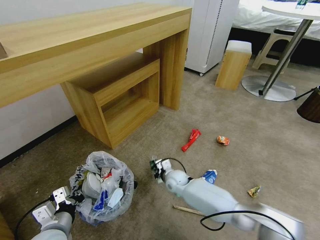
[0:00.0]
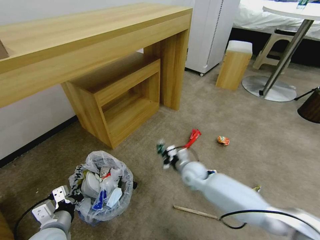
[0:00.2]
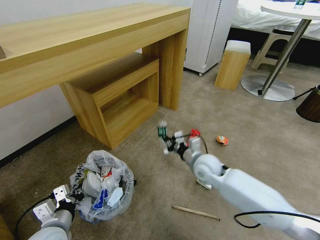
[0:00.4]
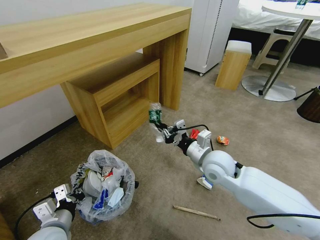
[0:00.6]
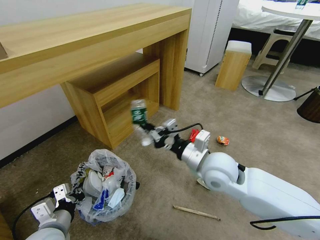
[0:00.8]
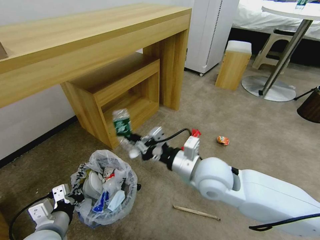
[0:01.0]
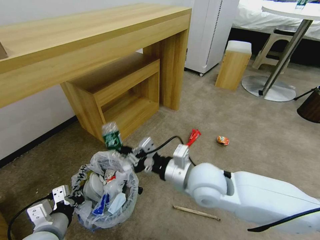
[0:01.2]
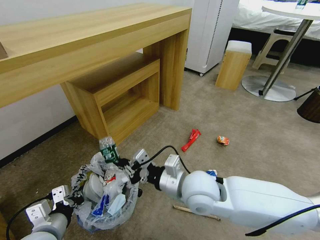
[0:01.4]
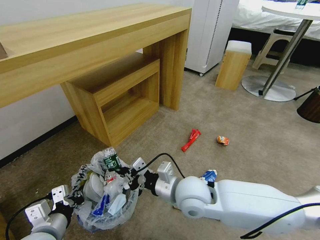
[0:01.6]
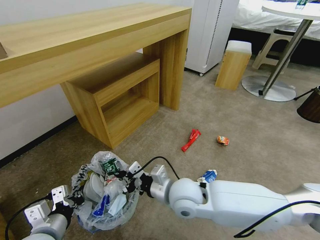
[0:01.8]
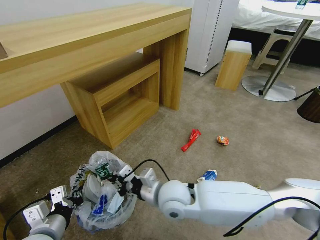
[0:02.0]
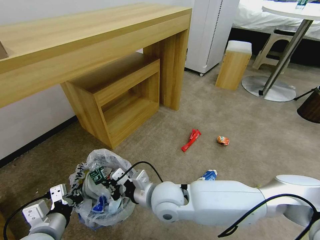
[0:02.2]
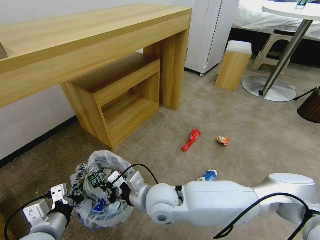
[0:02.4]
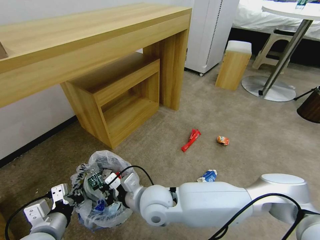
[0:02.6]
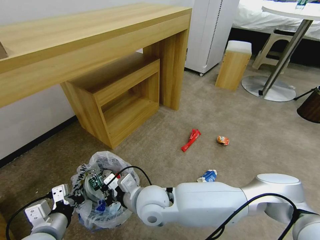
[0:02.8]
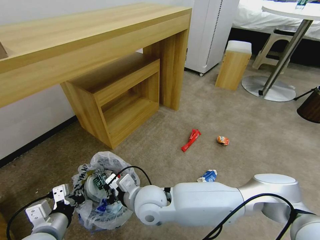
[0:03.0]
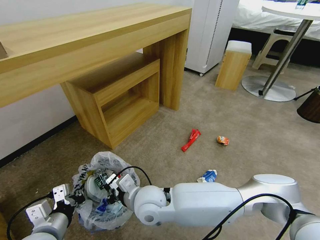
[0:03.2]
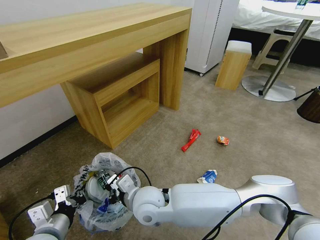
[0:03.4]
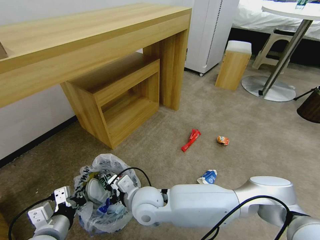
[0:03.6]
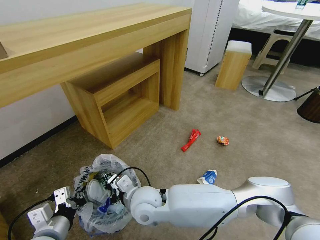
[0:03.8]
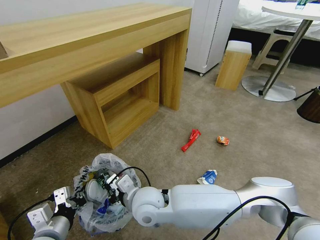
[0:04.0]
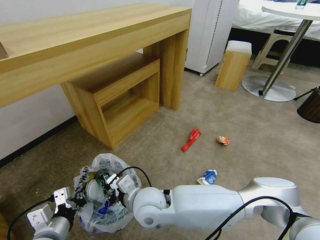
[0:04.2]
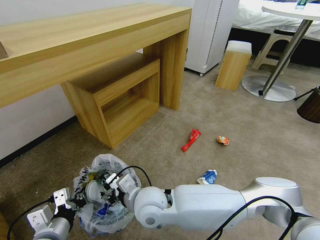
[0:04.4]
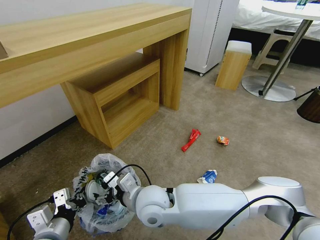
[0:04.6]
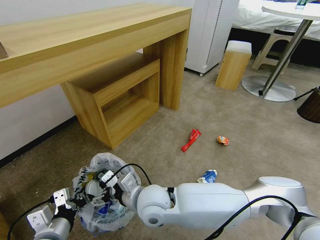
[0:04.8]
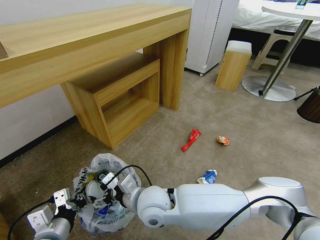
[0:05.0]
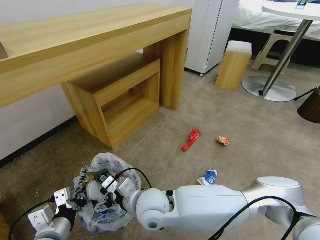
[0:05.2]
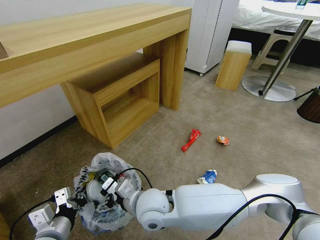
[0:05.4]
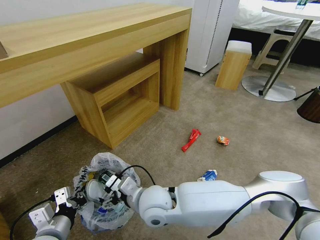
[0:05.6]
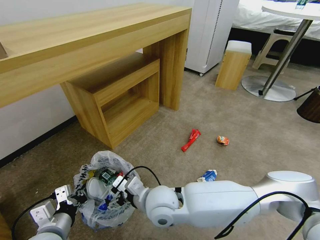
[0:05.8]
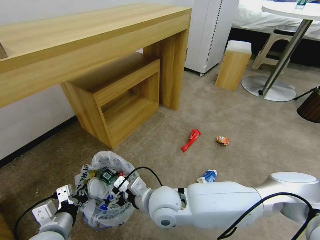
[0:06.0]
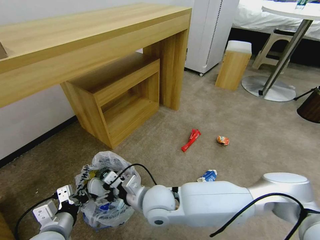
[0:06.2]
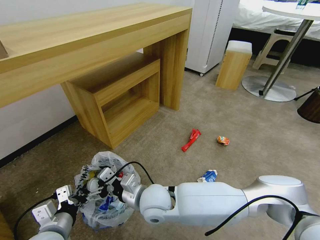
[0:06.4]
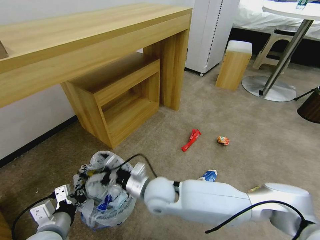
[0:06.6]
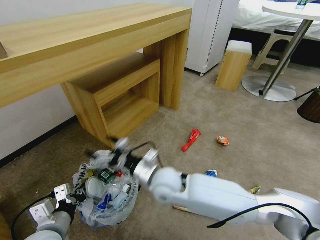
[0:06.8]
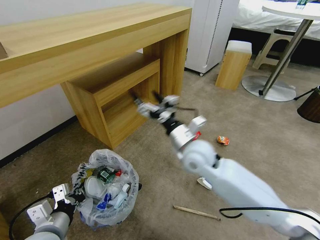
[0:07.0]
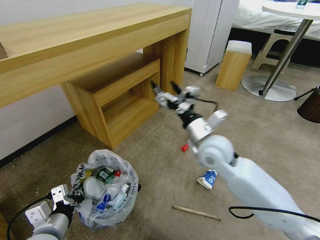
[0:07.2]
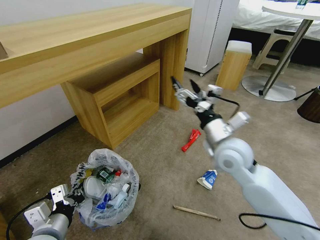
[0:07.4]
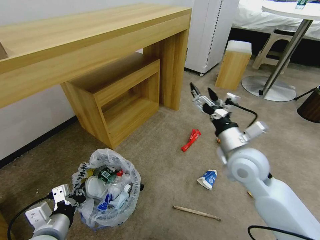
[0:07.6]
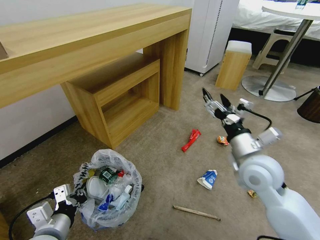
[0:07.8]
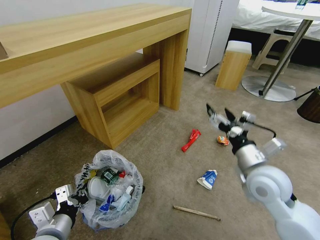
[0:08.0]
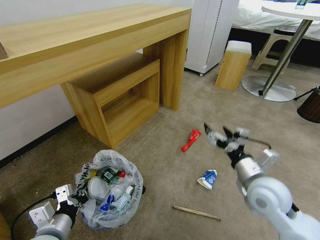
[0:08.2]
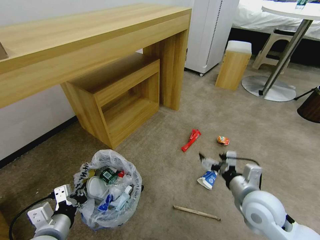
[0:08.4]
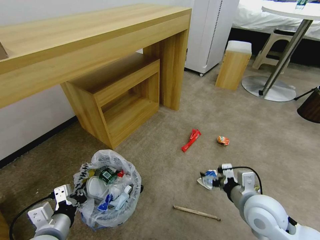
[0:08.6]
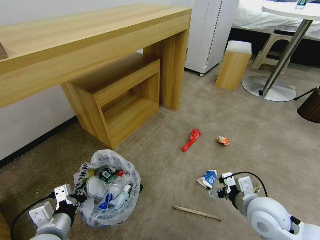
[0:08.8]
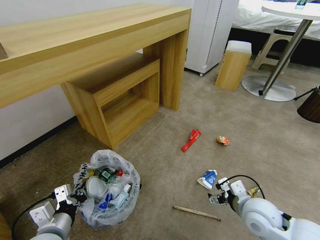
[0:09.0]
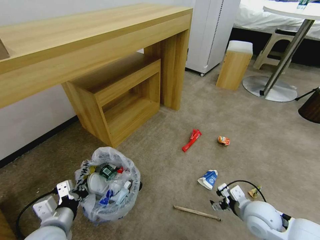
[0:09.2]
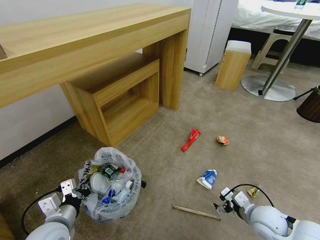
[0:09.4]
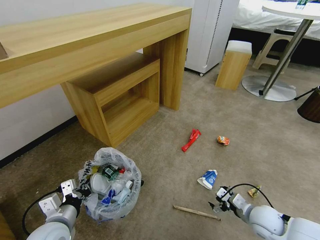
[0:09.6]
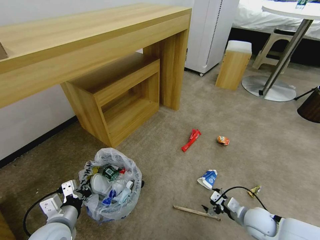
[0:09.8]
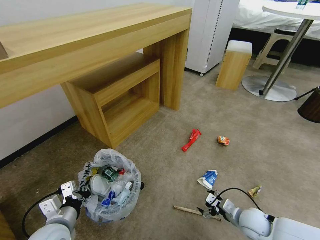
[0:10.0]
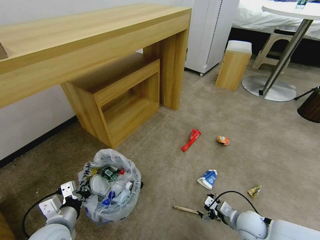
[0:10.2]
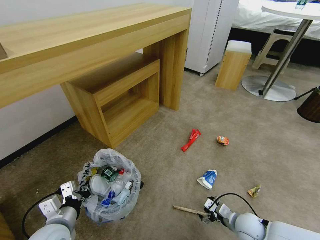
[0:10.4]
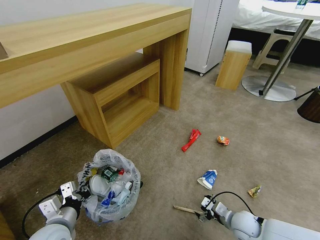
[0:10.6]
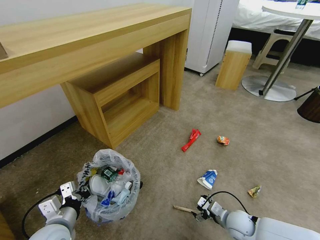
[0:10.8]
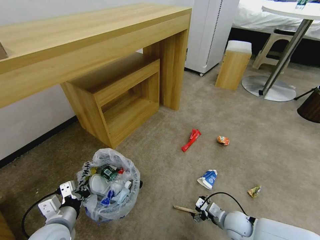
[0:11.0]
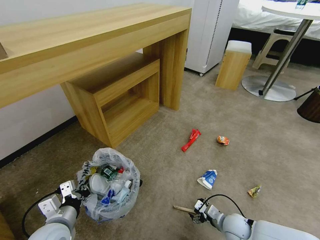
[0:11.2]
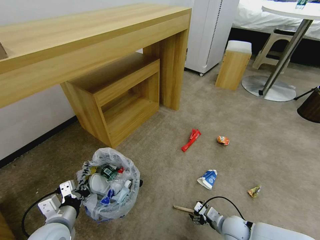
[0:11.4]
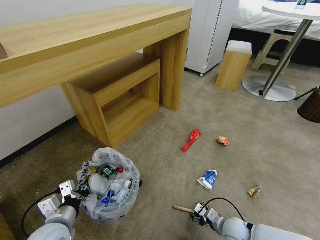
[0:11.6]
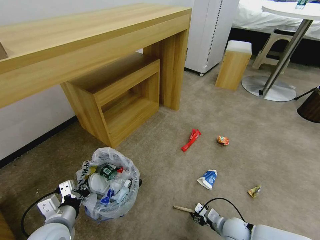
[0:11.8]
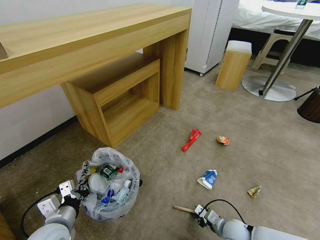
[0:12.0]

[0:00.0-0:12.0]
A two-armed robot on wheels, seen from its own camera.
Task of the whole recording: Pick up the trash bin and place the garbage on the floor into it.
0:00.0 to 0:01.6: The left gripper shifts approximately 5 cm upward. Meanwhile the right gripper travels upward and backward by roughly 25 cm.
0:01.6 to 0:03.0: The right gripper moves to the left, some 10 cm.
0:03.0 to 0:04.4: The right gripper opens its fingers.
0:04.4 to 0:06.0: The right gripper opens its fingers.
0:06.0 to 0:07.6: The right gripper goes about 25 cm to the right and upward.
0:07.6 to 0:09.0: The right gripper goes approximately 15 cm downward, backward and to the right.
0:09.0 to 0:10.4: The right gripper goes about 15 cm downward.
0:10.4 to 0:12.0: The right gripper changes place by about 5 cm, and closes its fingers.

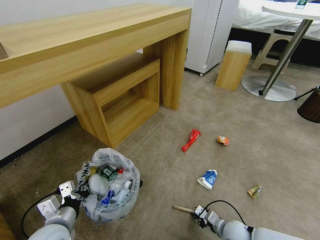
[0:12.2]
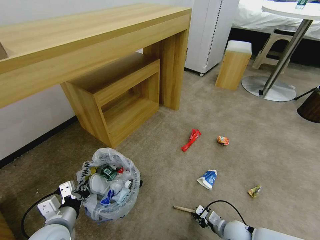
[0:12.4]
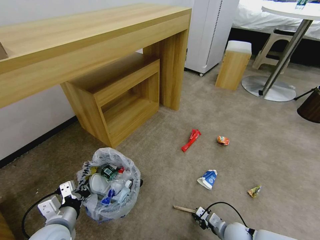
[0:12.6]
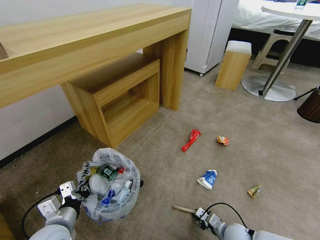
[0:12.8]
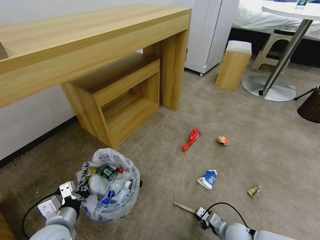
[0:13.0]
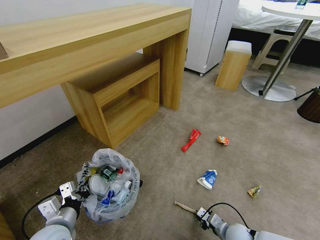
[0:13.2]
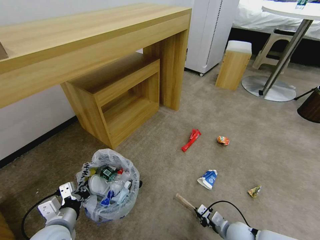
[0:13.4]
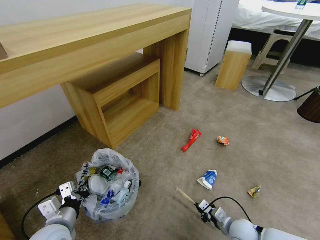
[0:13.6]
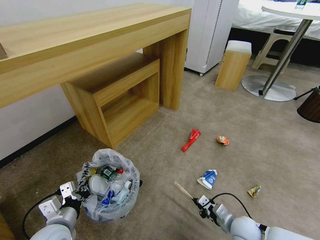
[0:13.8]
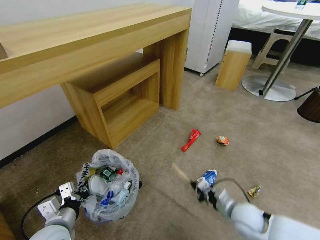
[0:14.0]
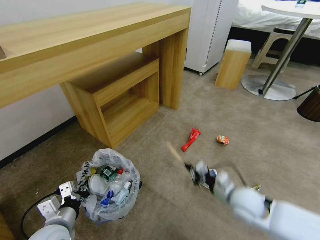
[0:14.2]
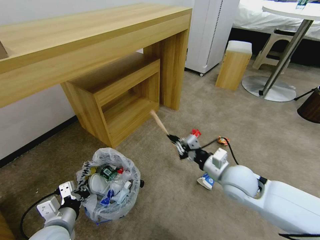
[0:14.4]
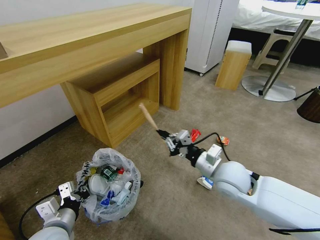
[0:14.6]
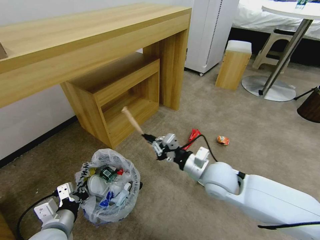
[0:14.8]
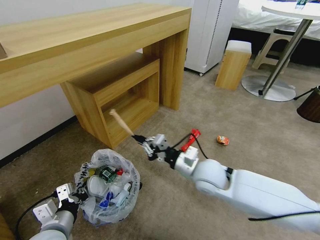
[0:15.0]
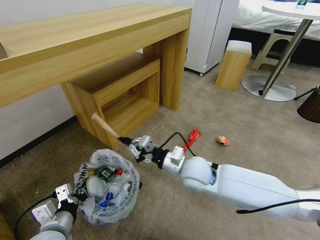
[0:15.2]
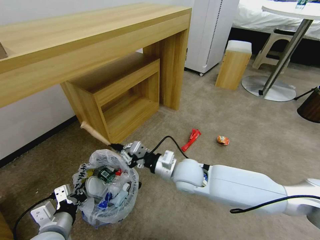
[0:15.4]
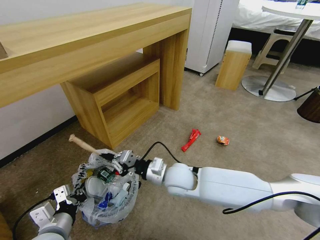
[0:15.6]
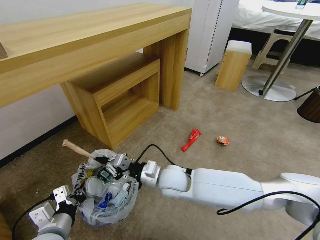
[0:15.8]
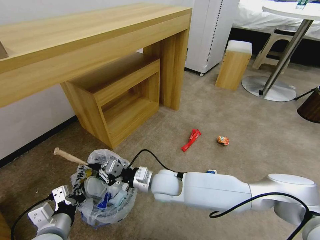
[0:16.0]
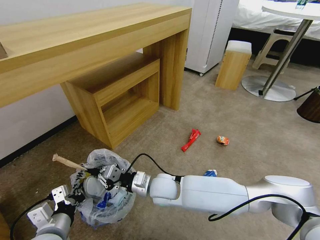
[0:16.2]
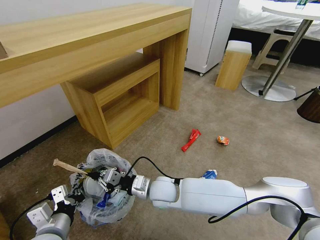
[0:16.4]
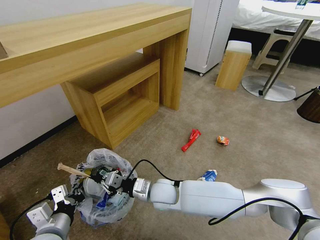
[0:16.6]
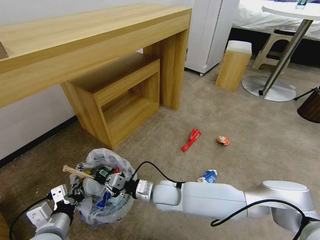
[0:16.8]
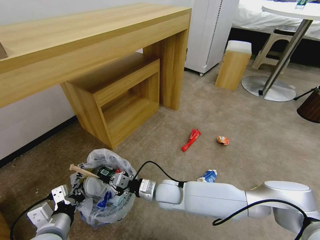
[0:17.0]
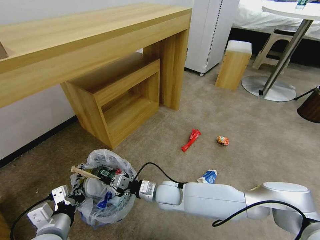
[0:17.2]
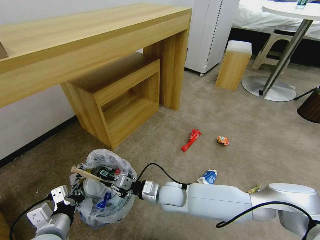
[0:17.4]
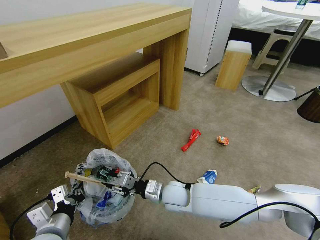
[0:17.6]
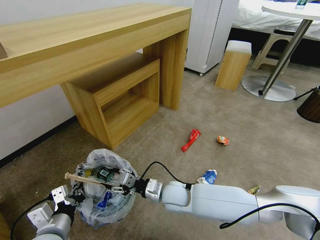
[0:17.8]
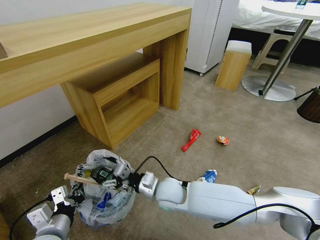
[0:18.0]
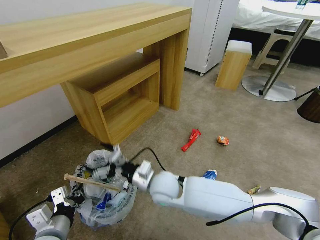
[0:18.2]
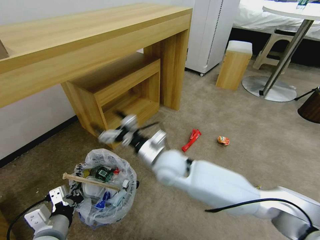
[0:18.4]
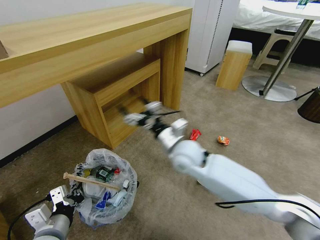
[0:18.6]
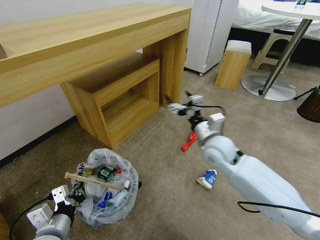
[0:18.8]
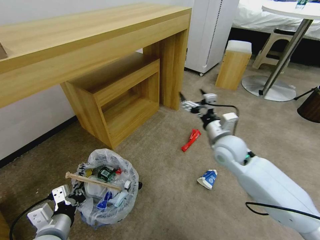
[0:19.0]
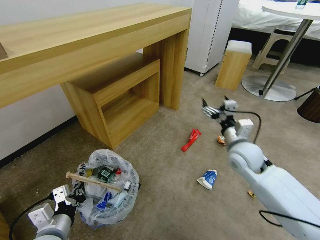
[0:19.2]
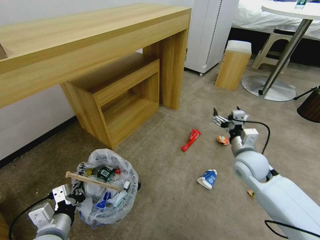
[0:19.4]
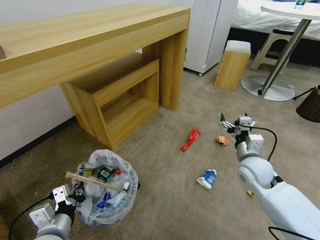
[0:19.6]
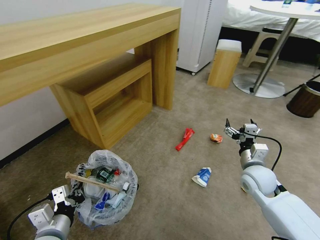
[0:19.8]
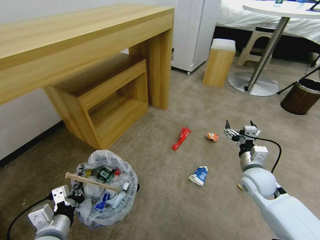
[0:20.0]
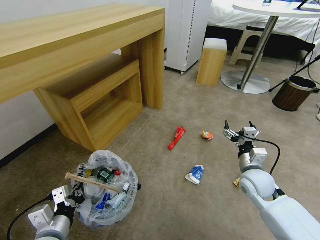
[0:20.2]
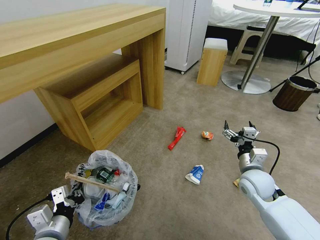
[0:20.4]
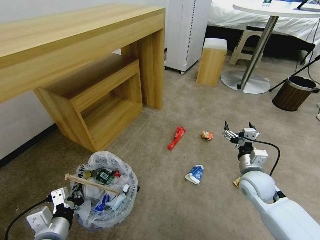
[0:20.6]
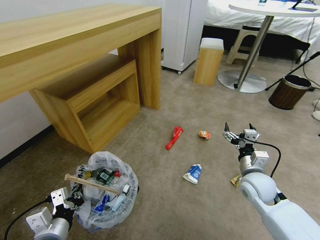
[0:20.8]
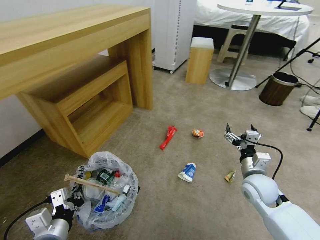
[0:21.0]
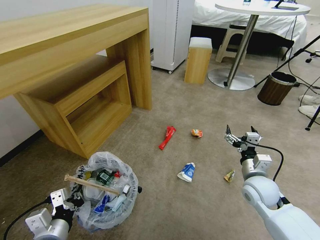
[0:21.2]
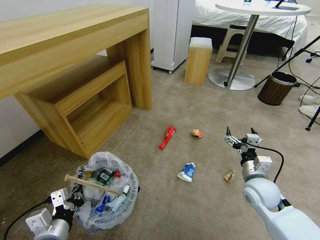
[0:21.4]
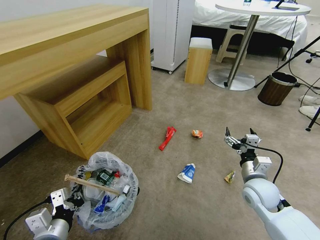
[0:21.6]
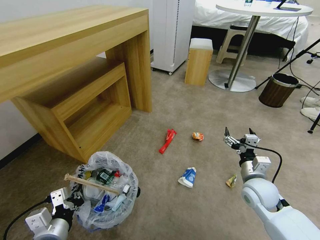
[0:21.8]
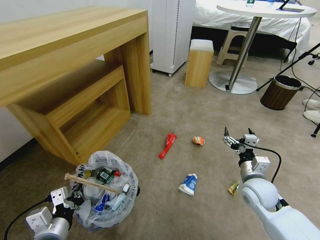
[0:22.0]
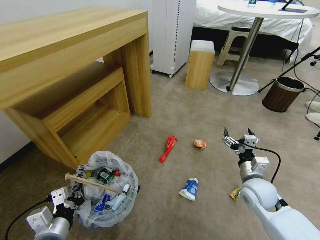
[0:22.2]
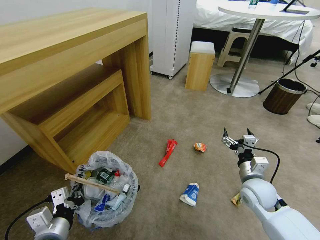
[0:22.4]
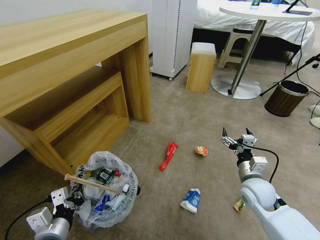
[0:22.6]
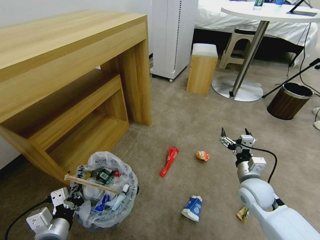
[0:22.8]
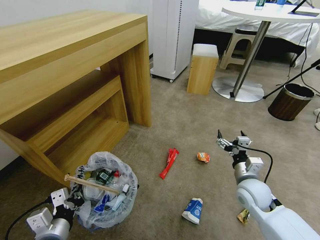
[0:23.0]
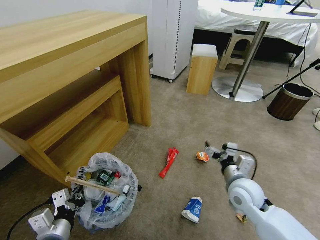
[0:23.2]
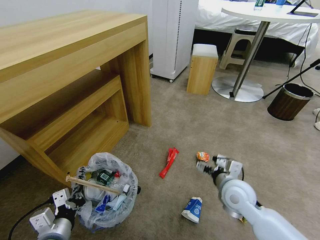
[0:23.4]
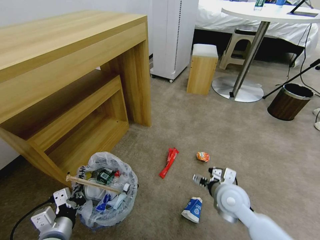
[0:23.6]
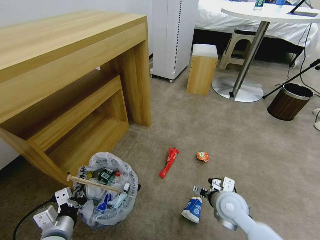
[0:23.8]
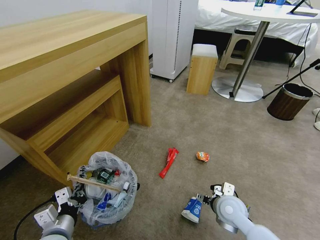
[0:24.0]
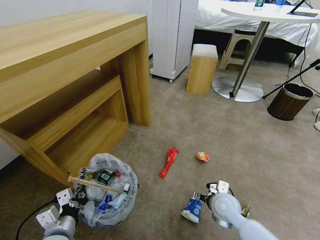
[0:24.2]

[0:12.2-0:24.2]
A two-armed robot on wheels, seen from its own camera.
Task of the whole recording: Pick up the trash bin and place the garbage on the floor into it.
0:12.2 to 0:13.8: There are only small adjustments of the grippers.
0:13.8 to 0:15.2: The right gripper goes approximately 30 cm upward, to the left and forward.
0:15.2 to 0:16.6: The right gripper shifts some 15 cm downward and to the left.
0:16.6 to 0:18.2: The right gripper moves upward, about 5 cm, and opens up.
0:18.2 to 0:19.8: The right gripper is displaced to the right by some 30 cm.
0:22.6 to 0:24.2: The right gripper heads to the left and downward, covering approximately 10 cm.
